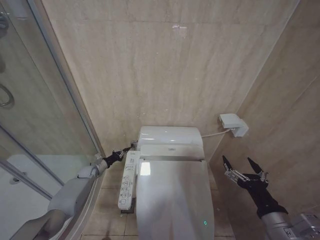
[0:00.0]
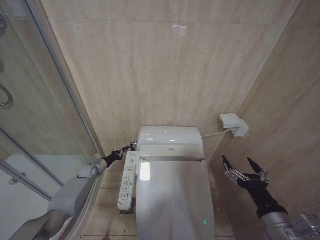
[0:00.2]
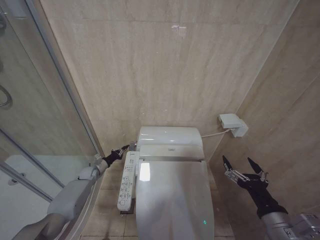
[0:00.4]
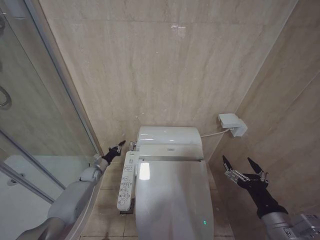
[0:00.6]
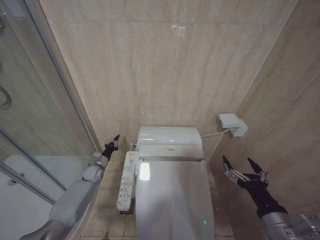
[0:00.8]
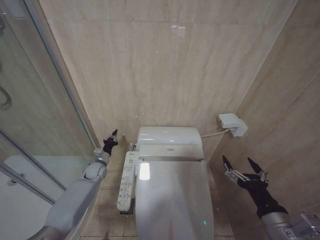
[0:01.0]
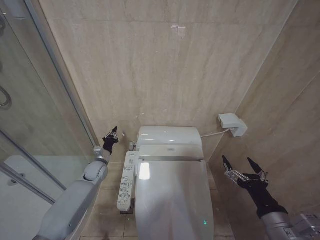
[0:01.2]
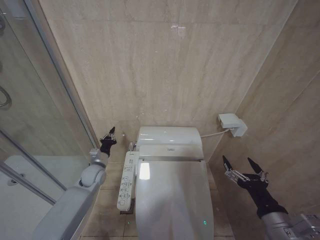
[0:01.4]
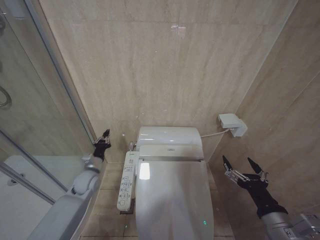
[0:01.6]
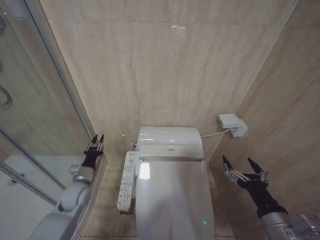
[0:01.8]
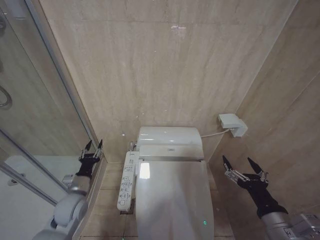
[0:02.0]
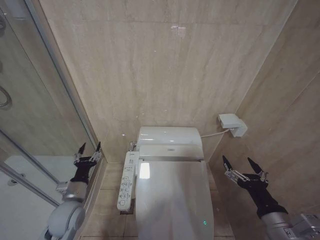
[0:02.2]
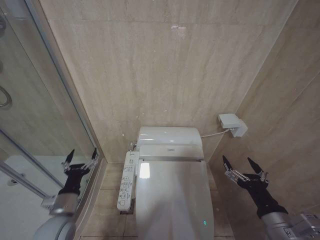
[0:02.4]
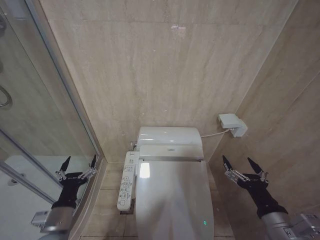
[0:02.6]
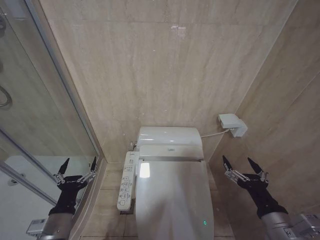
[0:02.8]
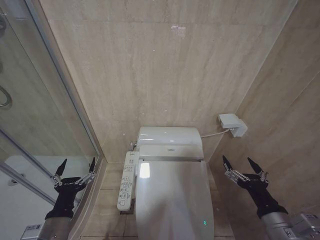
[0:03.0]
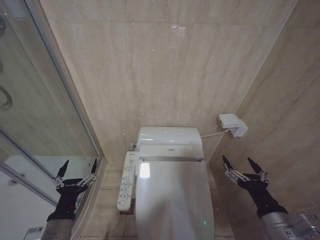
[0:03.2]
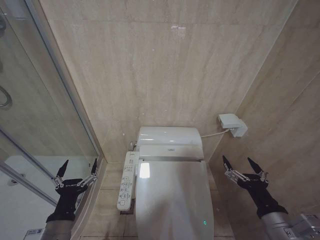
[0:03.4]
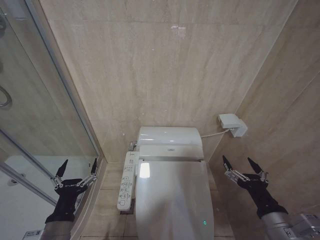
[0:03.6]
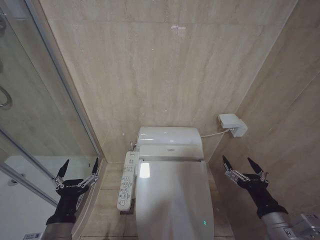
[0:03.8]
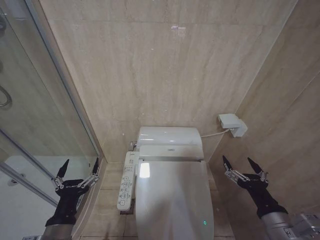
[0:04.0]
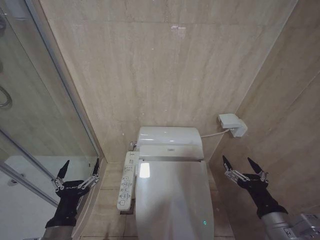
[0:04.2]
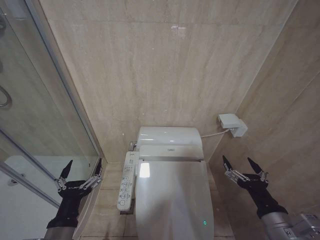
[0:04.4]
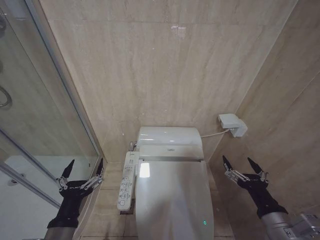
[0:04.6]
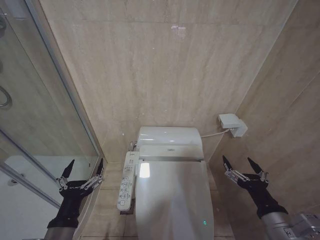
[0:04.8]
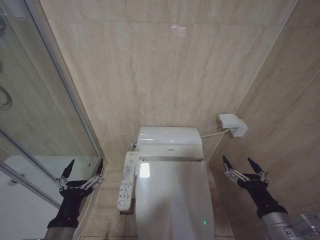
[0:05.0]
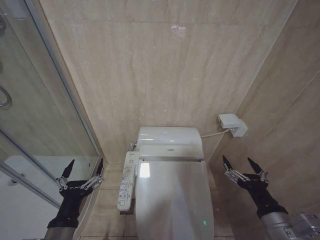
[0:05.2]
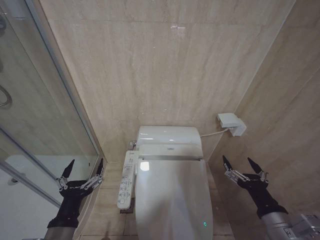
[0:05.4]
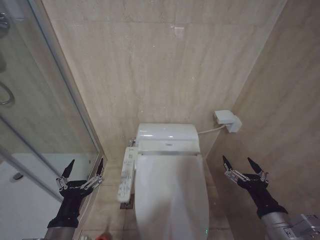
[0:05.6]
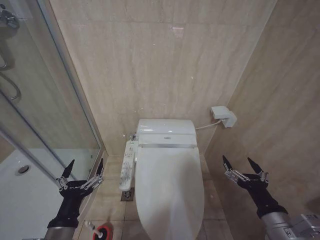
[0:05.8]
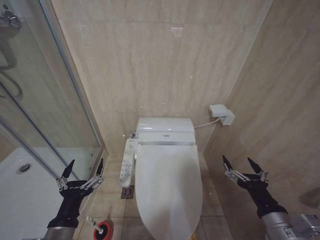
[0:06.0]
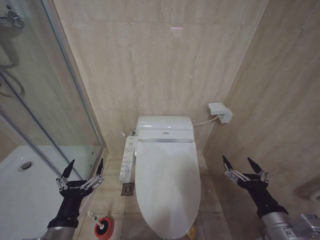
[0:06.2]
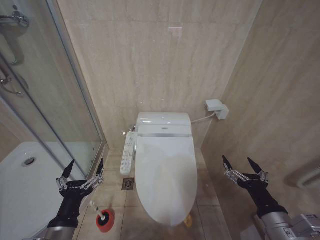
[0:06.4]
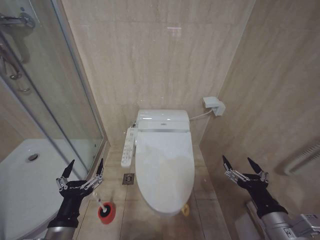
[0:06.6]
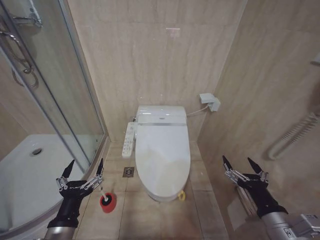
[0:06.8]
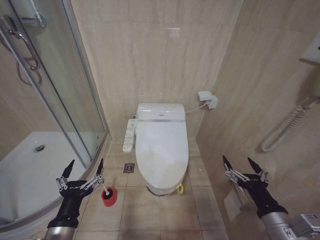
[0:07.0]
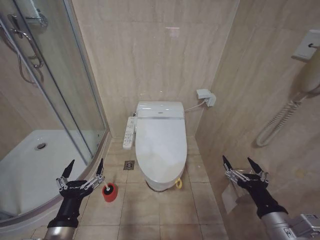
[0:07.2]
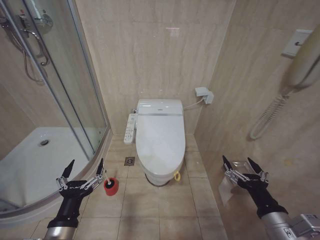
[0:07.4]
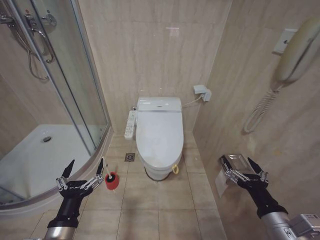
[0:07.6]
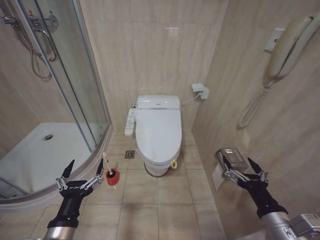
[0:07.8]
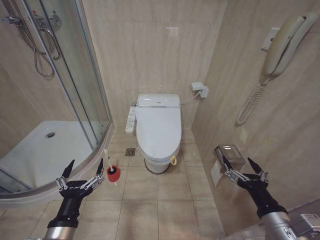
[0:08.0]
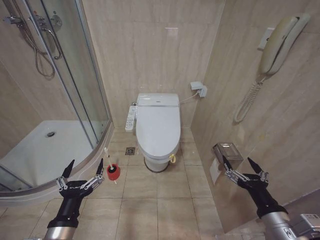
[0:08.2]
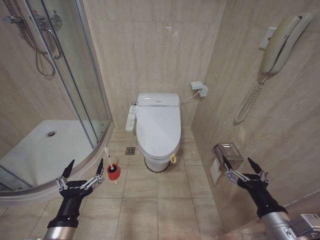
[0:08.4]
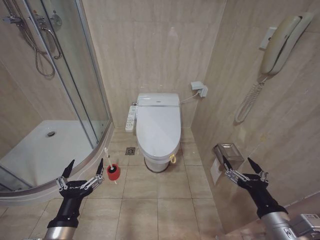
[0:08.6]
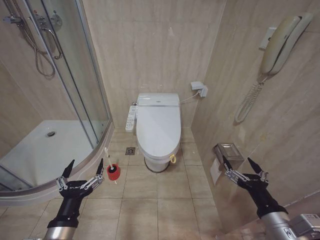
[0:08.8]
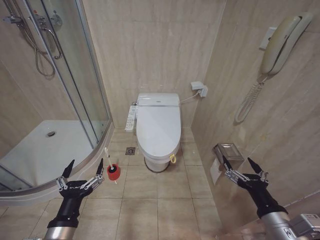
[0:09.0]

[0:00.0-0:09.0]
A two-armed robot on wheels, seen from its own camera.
Task of the whole recording: Open the toilet lid, clean the toilet bowl with a toilet brush, close the toilet lid, and flush.
0:00.0 to 0:01.6: The left gripper heads upward, backward and to the right, covering some 15 cm.
0:01.6 to 0:03.0: The left gripper travels backward by about 25 cm, and opens.
0:03.0 to 0:04.4: The left gripper changes place by roughly 5 cm.
0:04.4 to 0:06.0: Neither gripper changes place.
0:07.6 to 0:09.0: Neither gripper changes place.

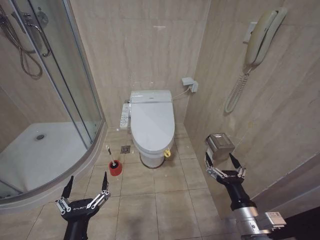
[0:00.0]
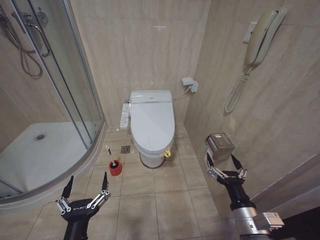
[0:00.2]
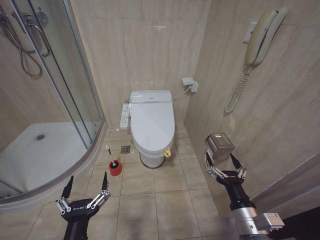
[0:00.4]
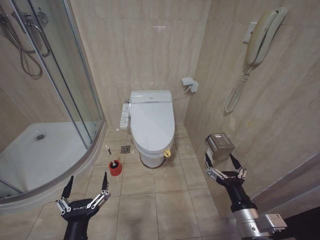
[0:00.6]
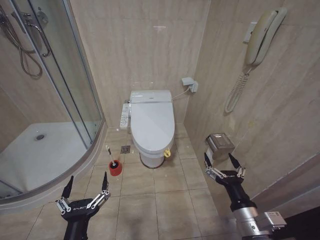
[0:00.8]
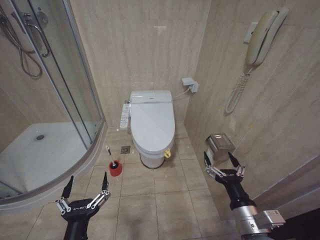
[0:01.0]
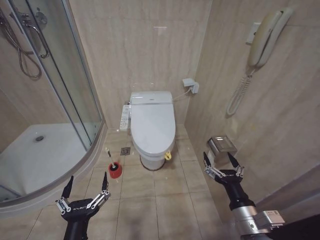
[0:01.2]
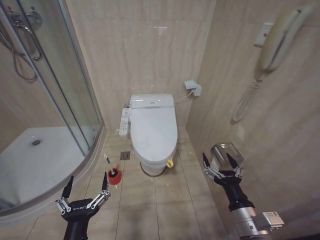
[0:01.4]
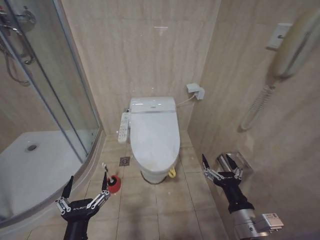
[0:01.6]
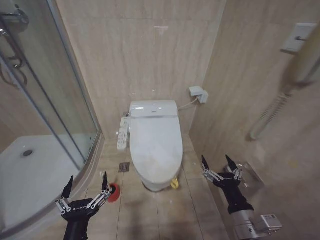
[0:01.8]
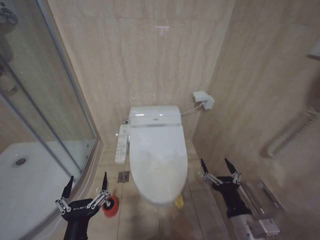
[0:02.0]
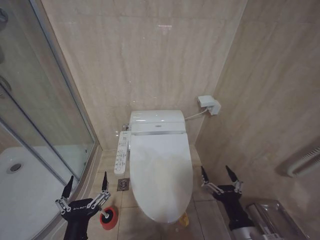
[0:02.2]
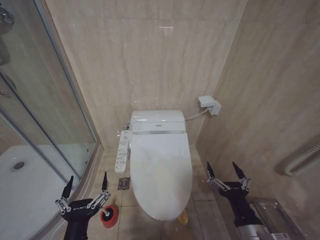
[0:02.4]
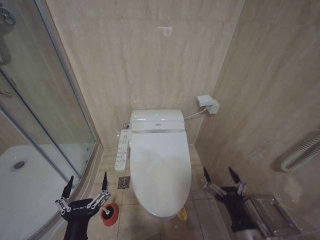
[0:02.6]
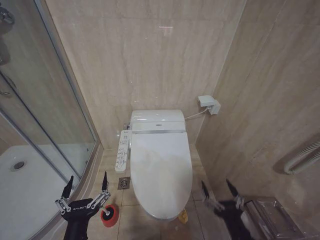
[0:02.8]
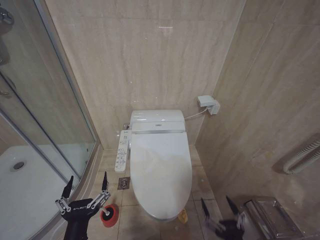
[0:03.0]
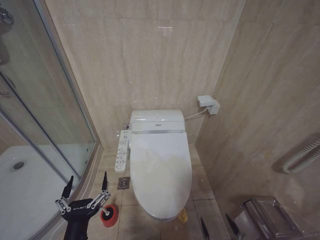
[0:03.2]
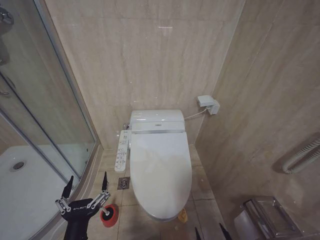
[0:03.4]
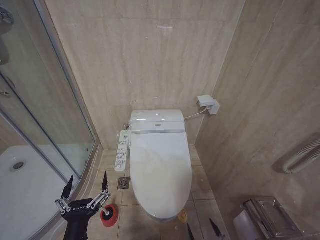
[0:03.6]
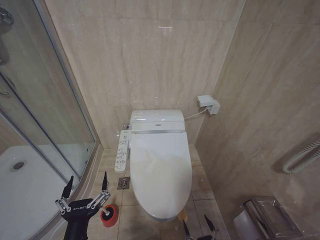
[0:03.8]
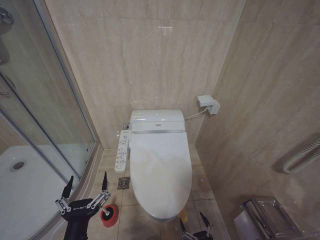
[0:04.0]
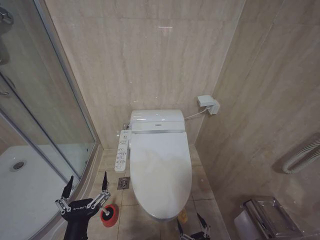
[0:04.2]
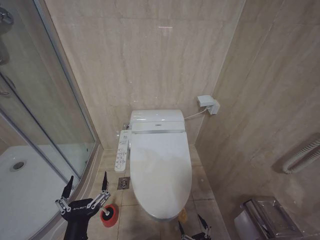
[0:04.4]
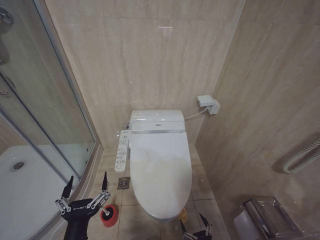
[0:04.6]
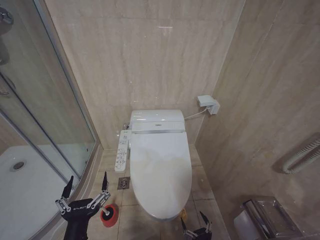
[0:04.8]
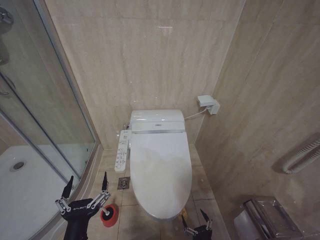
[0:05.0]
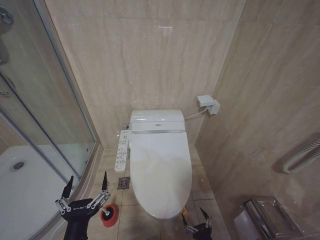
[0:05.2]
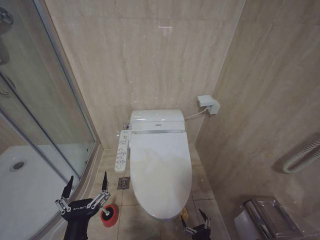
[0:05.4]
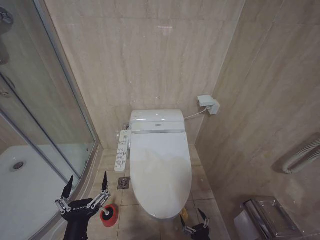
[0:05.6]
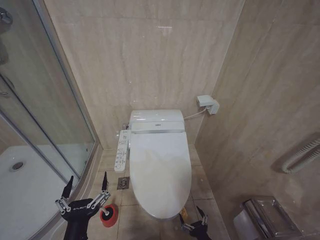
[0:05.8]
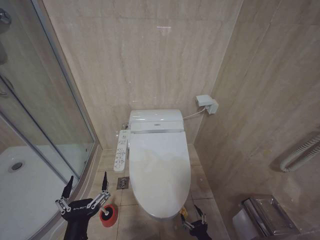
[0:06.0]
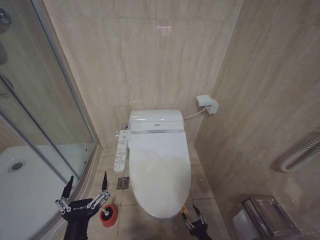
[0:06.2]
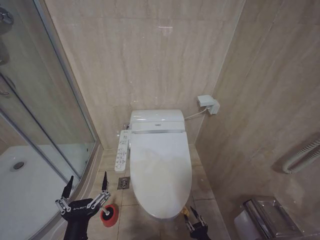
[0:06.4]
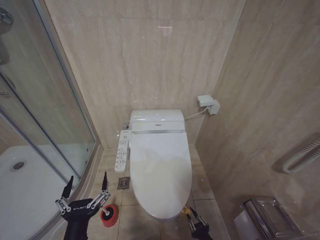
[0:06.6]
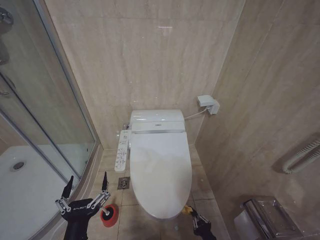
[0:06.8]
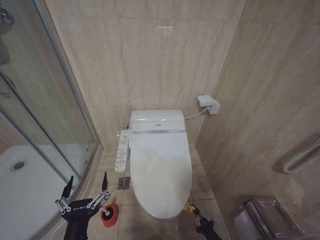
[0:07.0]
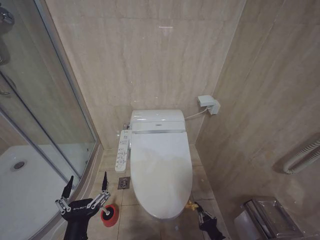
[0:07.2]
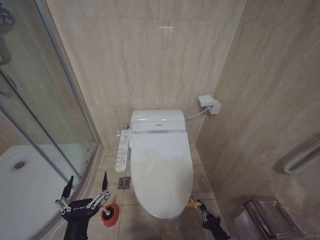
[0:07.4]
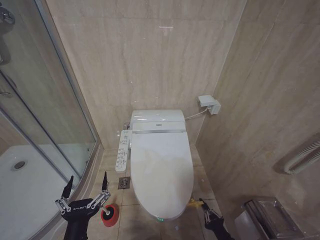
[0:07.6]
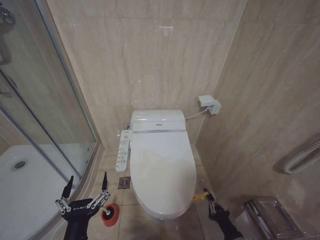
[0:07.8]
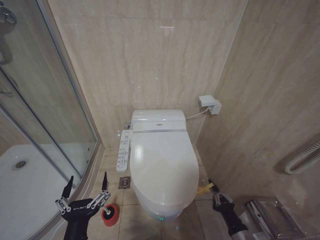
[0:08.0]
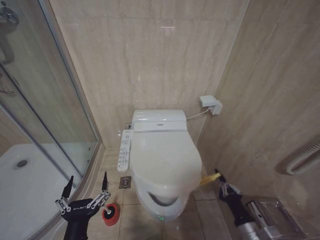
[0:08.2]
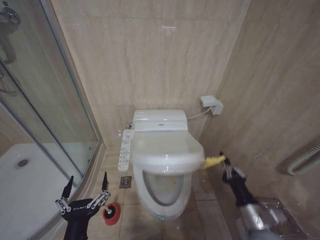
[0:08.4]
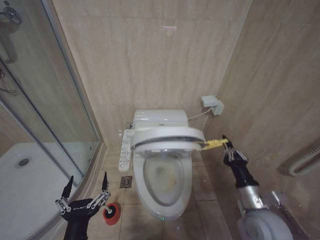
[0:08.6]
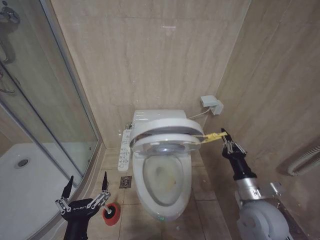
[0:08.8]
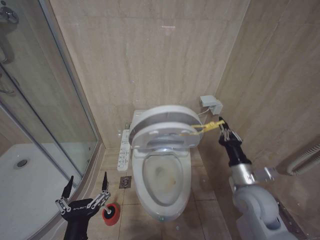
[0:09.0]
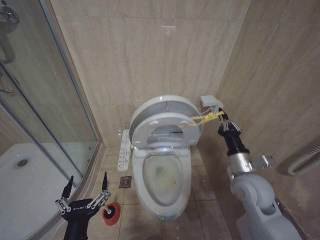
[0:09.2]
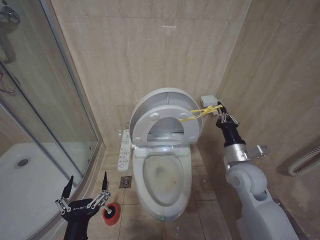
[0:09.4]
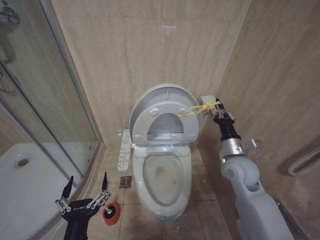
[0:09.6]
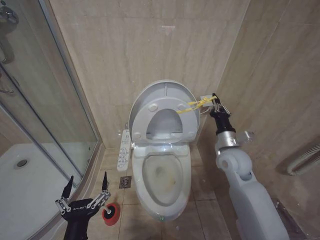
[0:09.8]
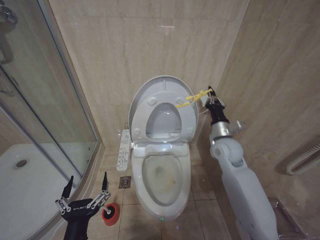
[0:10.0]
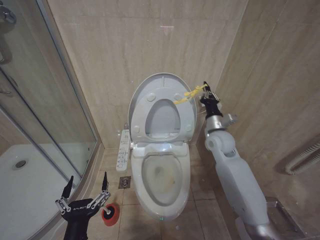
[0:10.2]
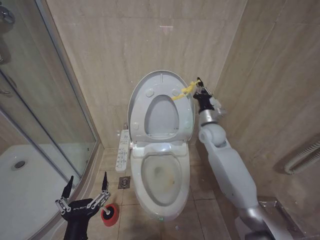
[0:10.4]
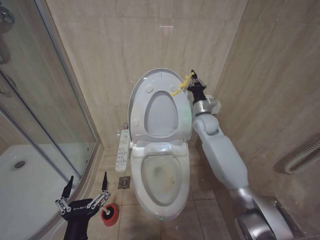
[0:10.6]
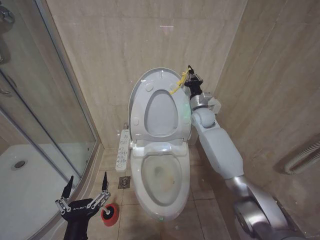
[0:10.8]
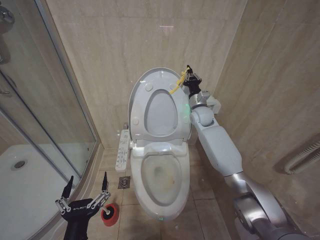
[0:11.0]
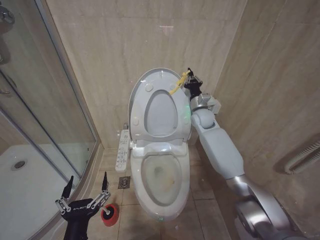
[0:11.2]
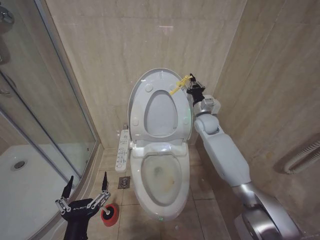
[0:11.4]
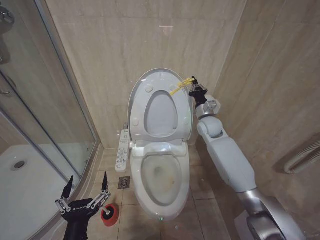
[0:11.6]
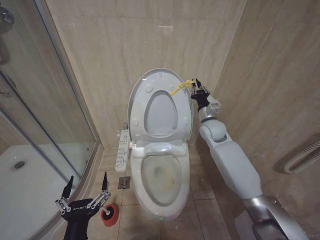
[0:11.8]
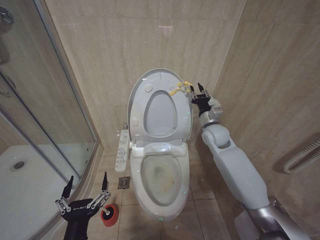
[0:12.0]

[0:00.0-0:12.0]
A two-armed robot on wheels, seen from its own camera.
Task of the whole recording: Open the toilet lid, clean the toilet bowl with a toilet brush, close the toilet lid, and flush.
0:01.6 to 0:03.0: The right gripper goes about 10 cm backward and downward.
0:03.0 to 0:04.4: The right gripper shifts some 15 cm downward.
0:04.4 to 0:06.0: The right gripper travels forward by roughly 5 cm.
0:06.0 to 0:07.6: The right gripper travels to the right by approximately 5 cm, and closes up.
0:07.6 to 0:09.0: The right gripper moves upward and forward, about 25 cm.
0:09.0 to 0:10.4: The right gripper shifts some 25 cm forward.
0:10.4 to 0:12.0: The right gripper moves some 10 cm forward and comes back.

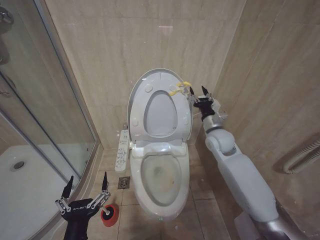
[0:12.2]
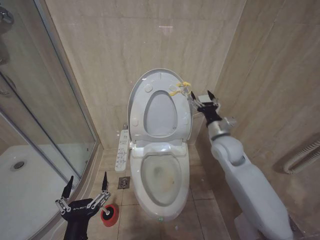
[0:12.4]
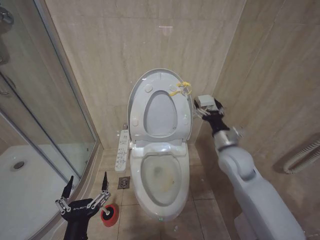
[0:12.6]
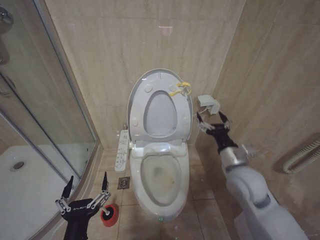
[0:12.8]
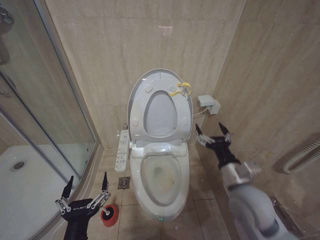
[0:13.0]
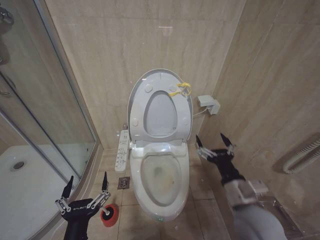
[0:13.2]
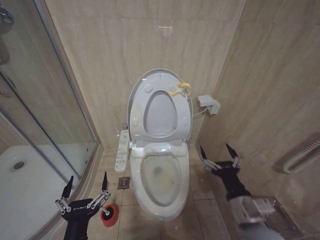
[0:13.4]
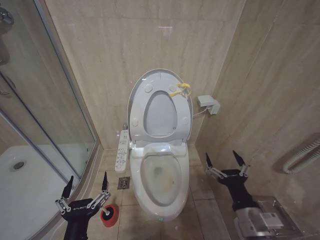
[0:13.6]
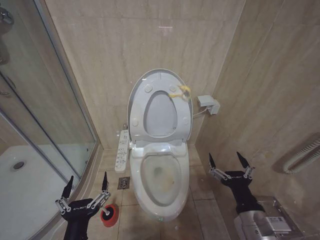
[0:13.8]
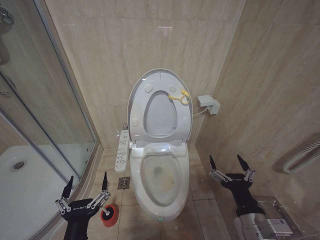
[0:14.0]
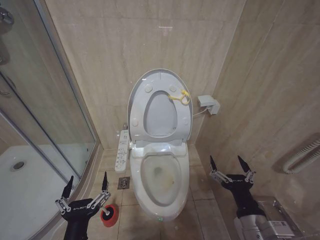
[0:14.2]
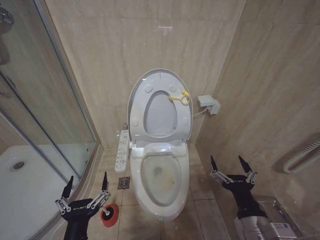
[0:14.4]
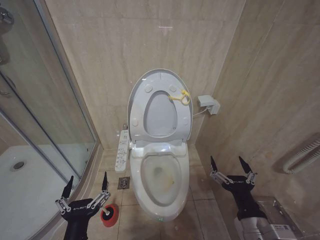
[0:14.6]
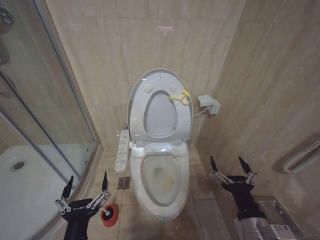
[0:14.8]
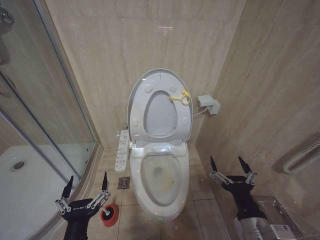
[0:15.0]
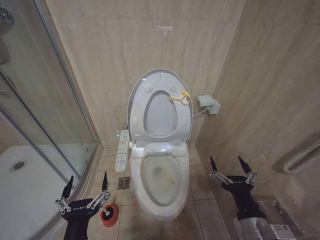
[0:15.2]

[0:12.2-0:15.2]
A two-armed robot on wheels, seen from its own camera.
Task of the whole recording: Open the toilet lid, clean the toilet bowl with a toilet brush, close the toilet lid, and flush.
0:12.2 to 0:13.8: The right gripper travels backward by about 30 cm, and opens.
0:13.8 to 0:15.2: There are only small adjustments of the grippers.
